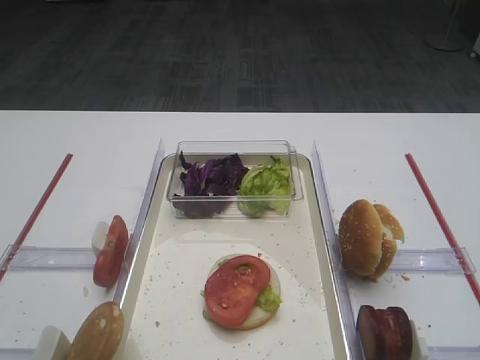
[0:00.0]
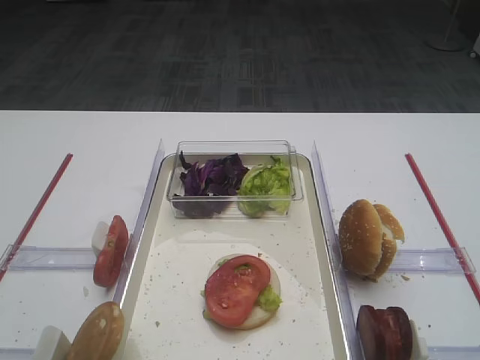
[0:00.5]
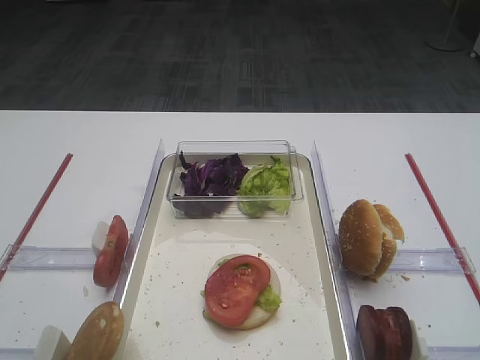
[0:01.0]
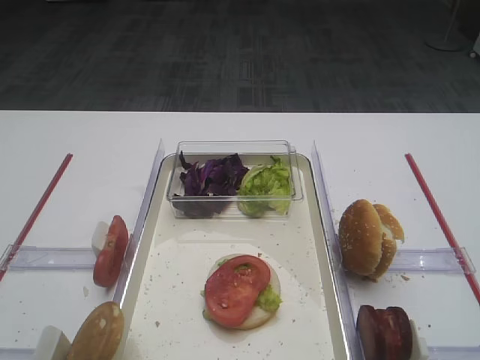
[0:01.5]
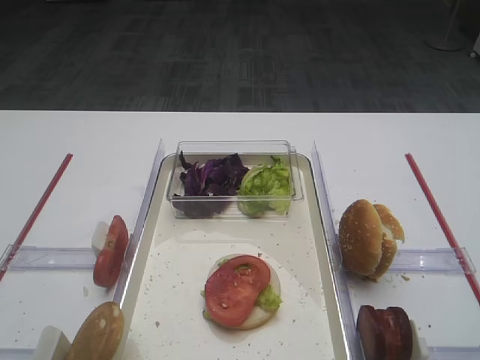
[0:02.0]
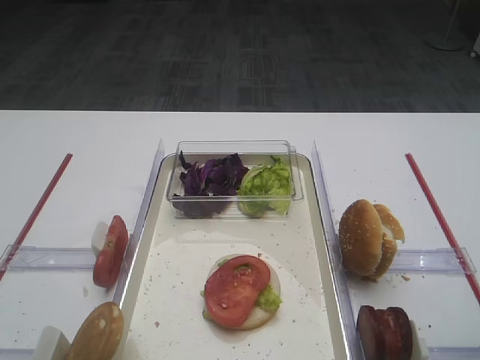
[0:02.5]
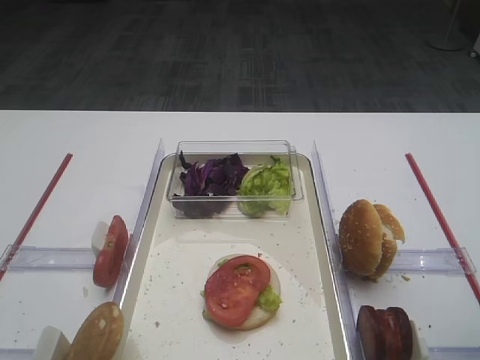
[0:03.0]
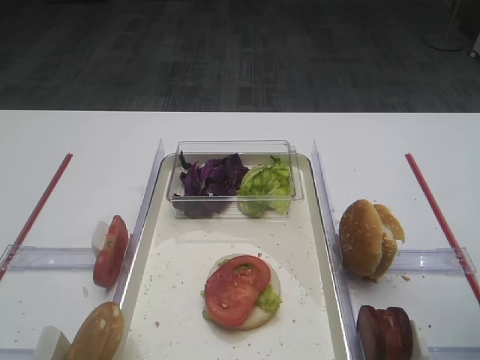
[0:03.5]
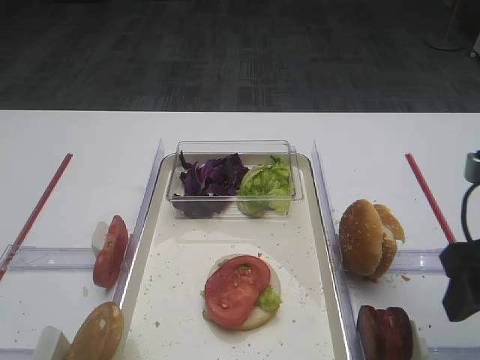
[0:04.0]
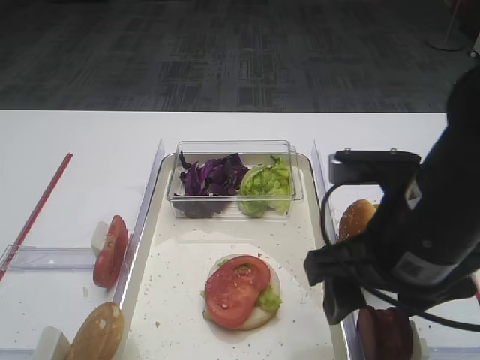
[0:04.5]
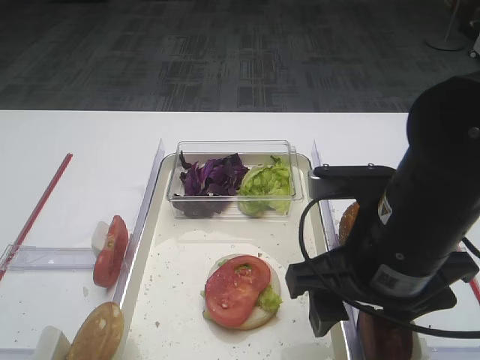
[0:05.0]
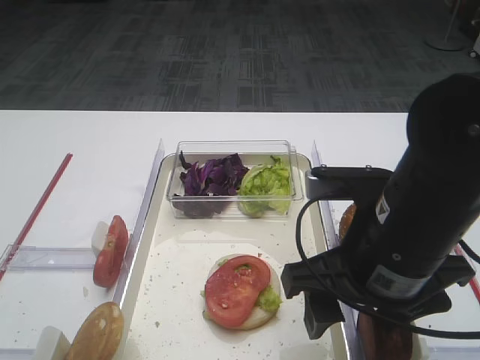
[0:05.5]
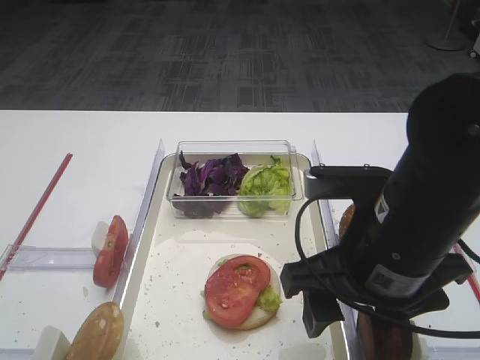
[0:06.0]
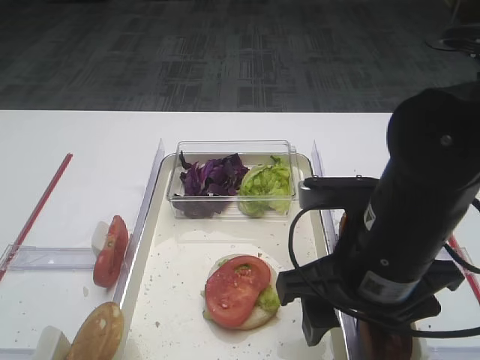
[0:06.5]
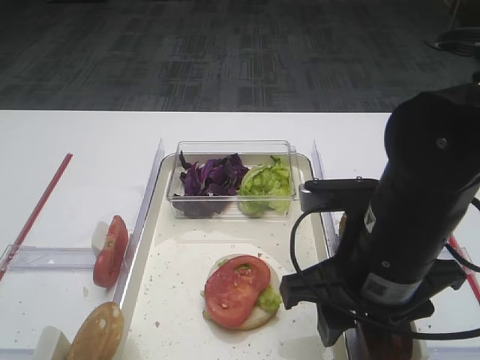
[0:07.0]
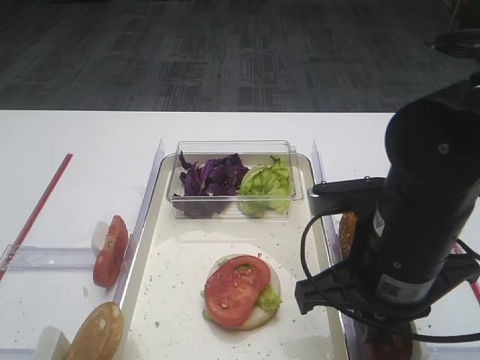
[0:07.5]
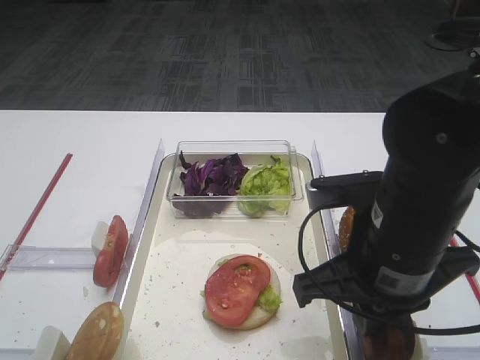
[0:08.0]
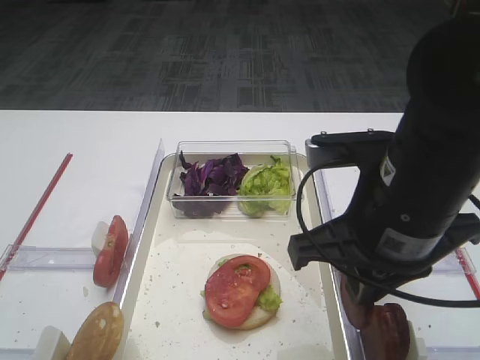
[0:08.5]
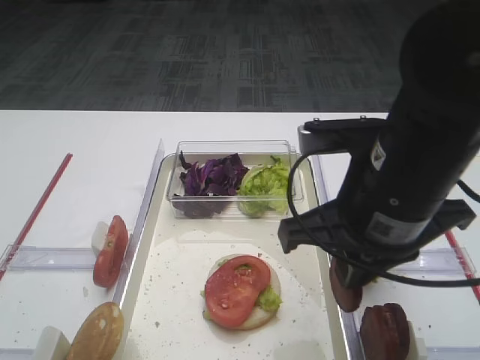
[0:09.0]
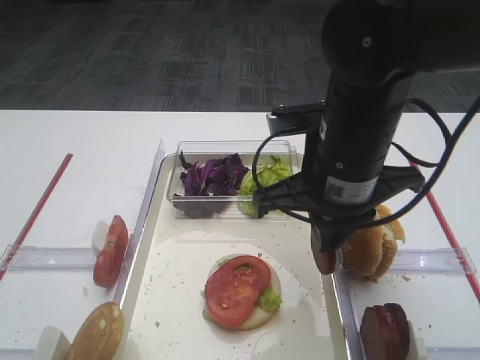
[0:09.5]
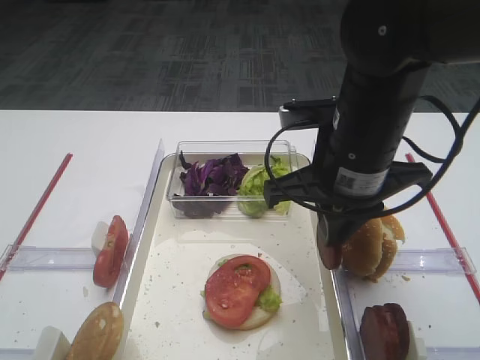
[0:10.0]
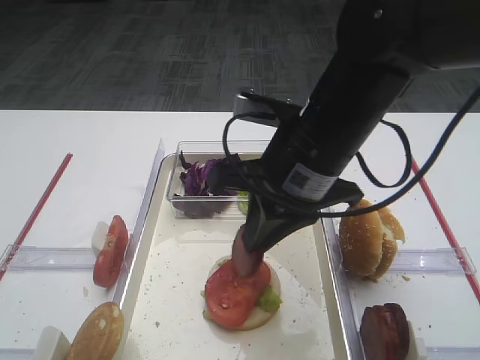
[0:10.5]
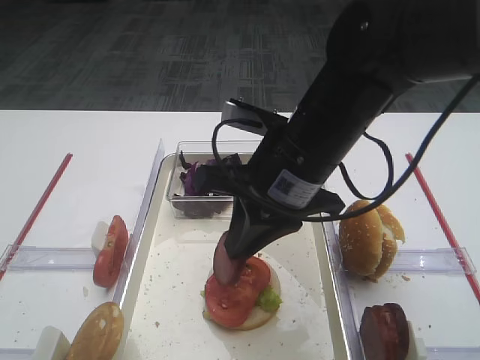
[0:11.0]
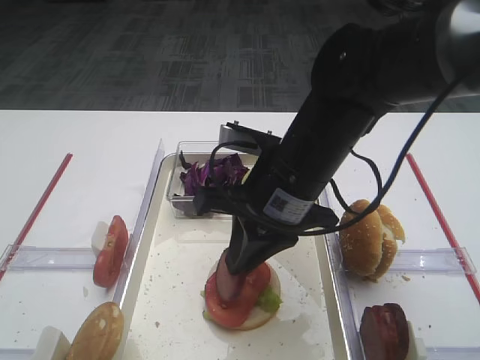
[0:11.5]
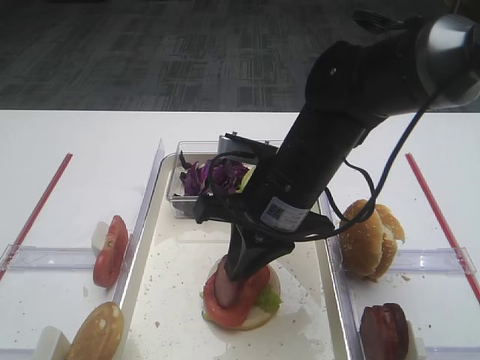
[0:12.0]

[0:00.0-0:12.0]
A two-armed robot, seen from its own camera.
Step, 0.0 to 8.5 s: Pick up the cutlet with the right gripper.
2.0 to 4.0 s: The right gripper travels forward by about 10 cm.
4.0 to 6.0 s: The right gripper goes some 10 cm to the left.
6.0 to 8.0 s: The right gripper closes its fingers.
8.0 to 10.0 s: The right gripper shifts about 5 cm forward.
10.0 to 12.0 s: The right gripper is displaced to the left by roughly 5 cm.

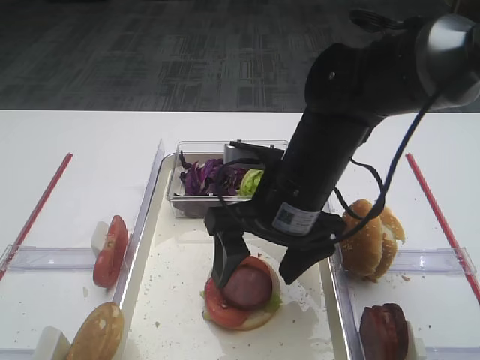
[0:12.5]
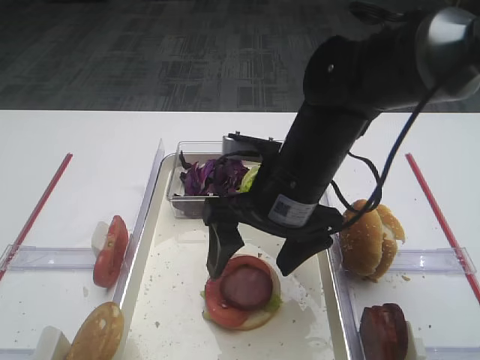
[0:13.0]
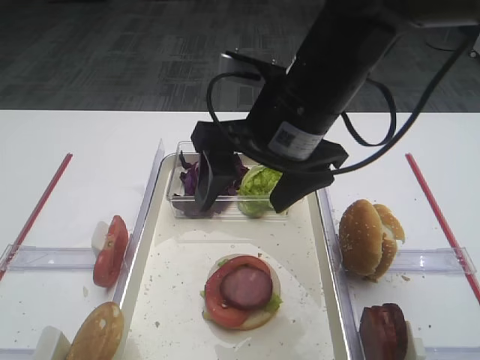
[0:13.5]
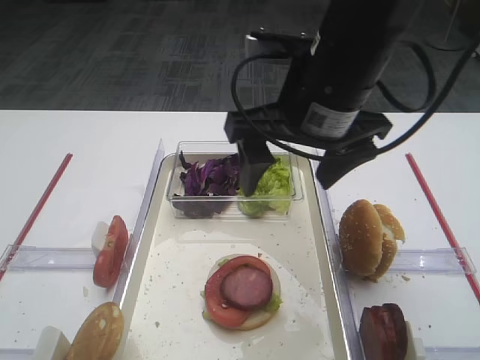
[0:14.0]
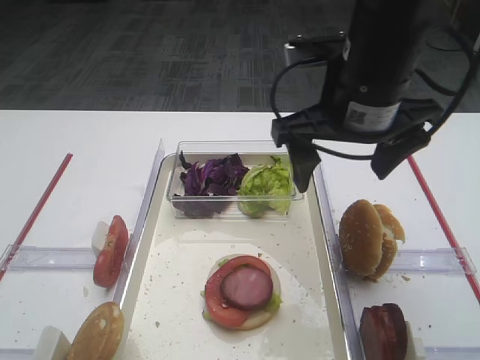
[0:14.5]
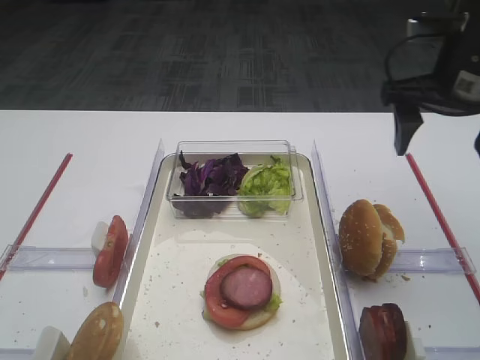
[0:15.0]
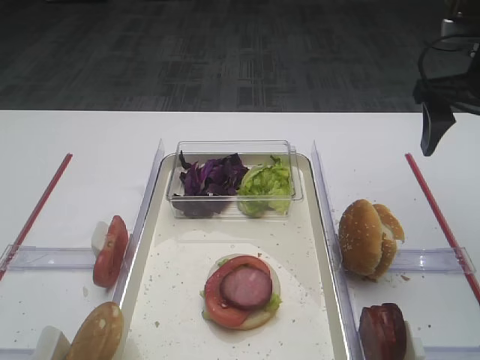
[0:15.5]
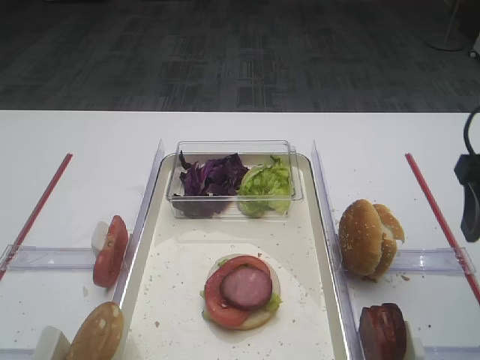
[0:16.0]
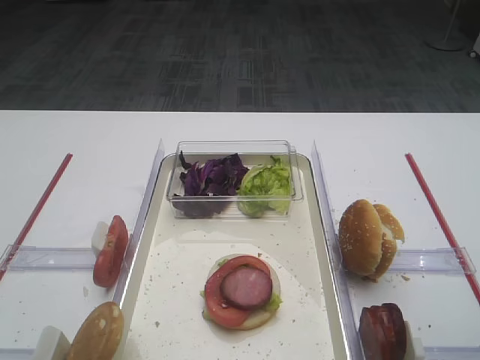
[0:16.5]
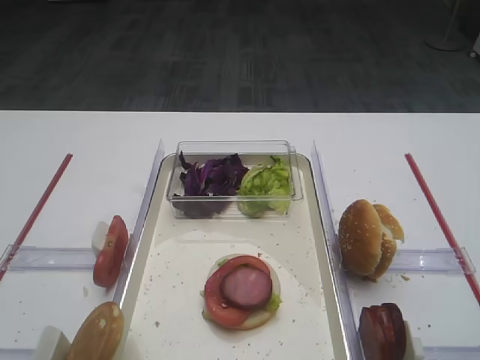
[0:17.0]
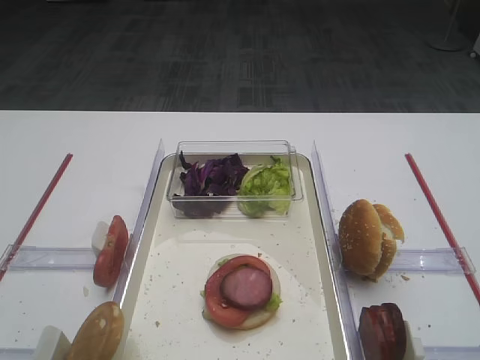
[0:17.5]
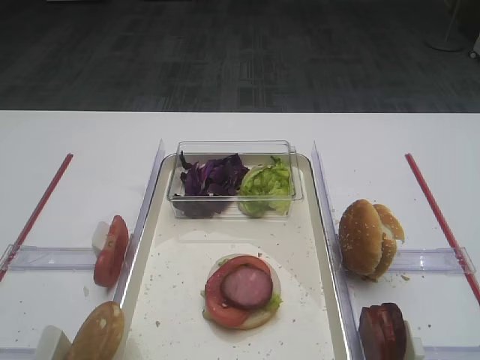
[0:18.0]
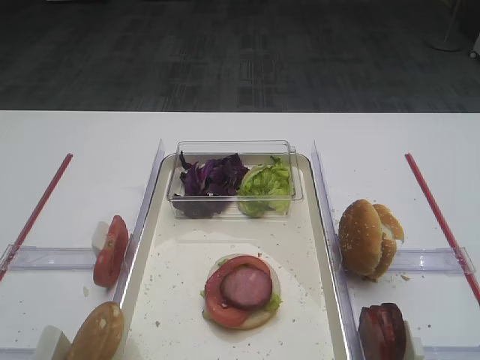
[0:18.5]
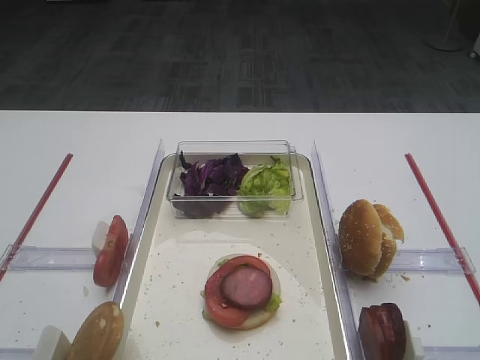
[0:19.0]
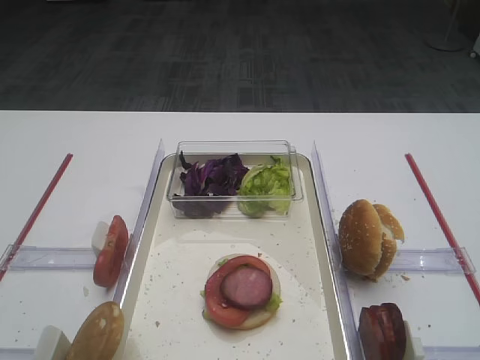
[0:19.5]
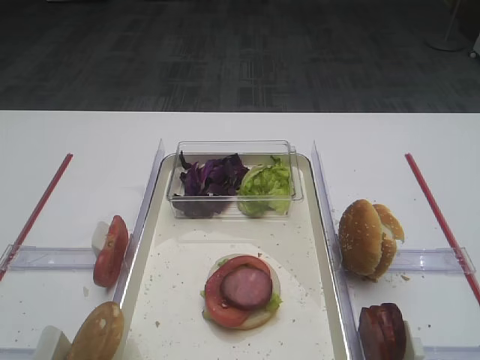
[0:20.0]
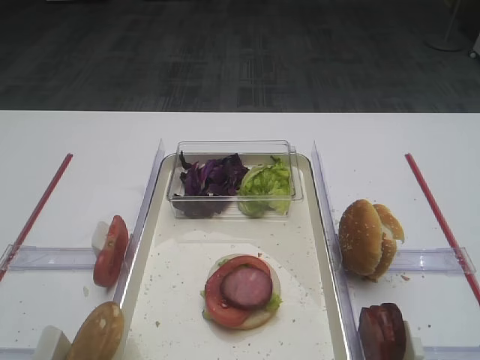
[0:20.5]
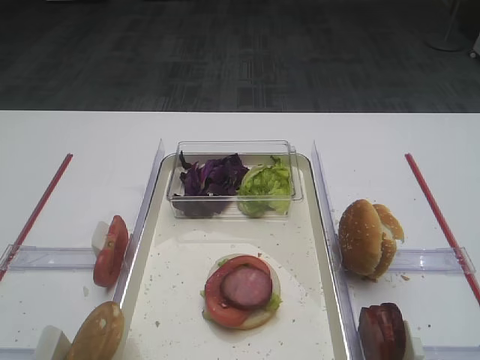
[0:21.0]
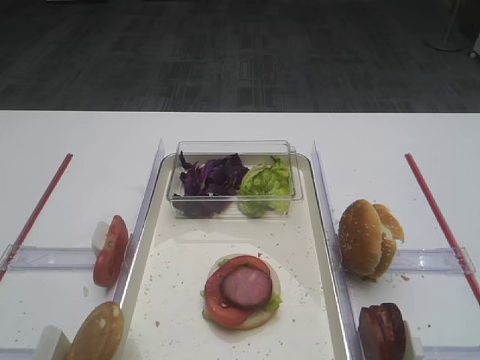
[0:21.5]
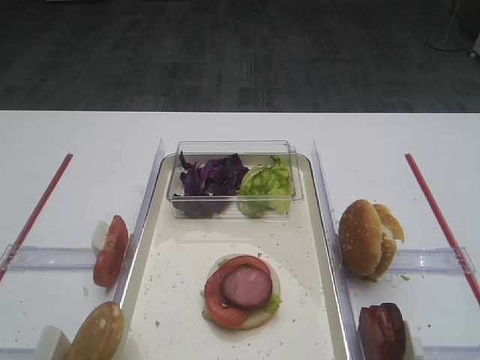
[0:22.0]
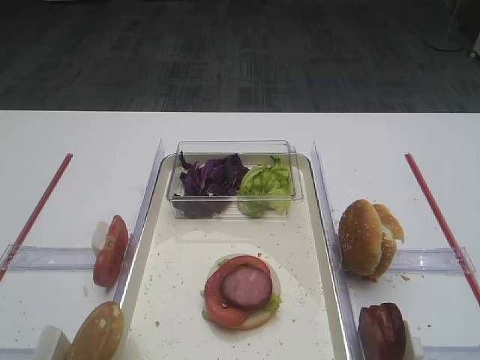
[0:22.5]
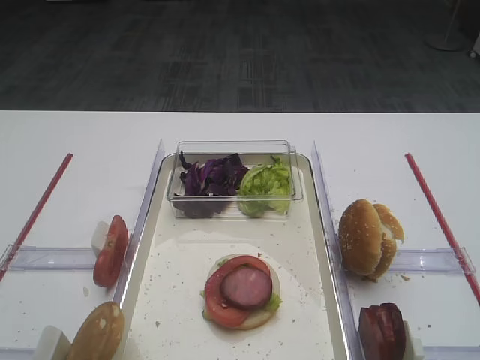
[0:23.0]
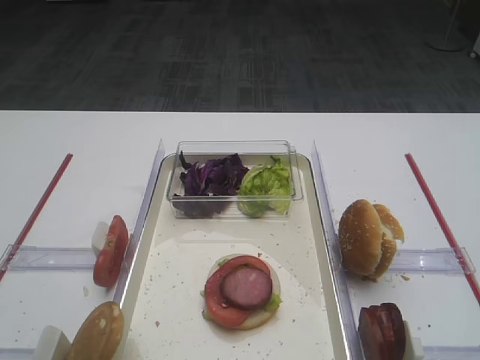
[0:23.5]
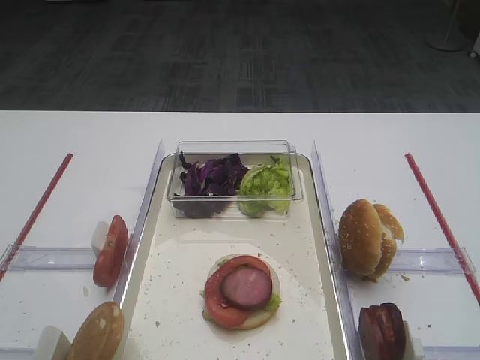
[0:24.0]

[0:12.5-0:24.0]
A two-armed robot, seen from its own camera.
12.5 to 14.5 s: The right gripper shifts roughly 10 cm upward and to the right.
14.5 to 16.5 s: The right gripper goes roughly 25 cm backward and to the right.
18.5 to 24.0 s: Both grippers stay about where they are.

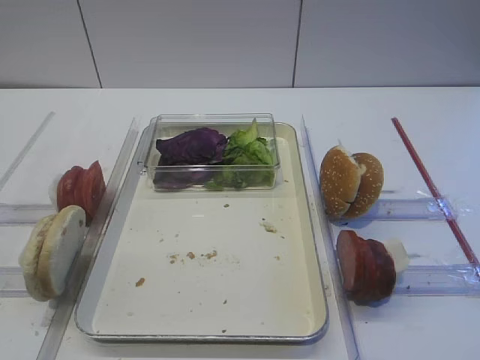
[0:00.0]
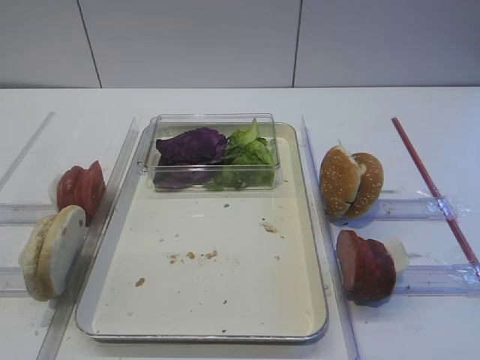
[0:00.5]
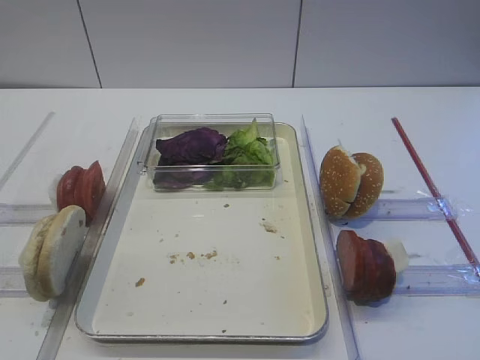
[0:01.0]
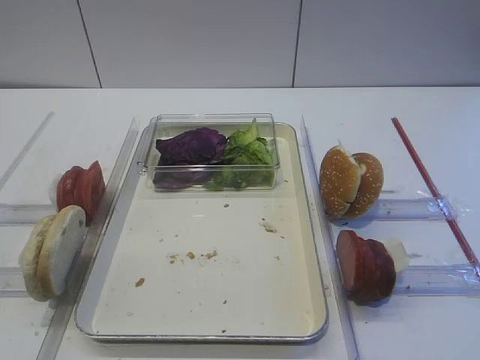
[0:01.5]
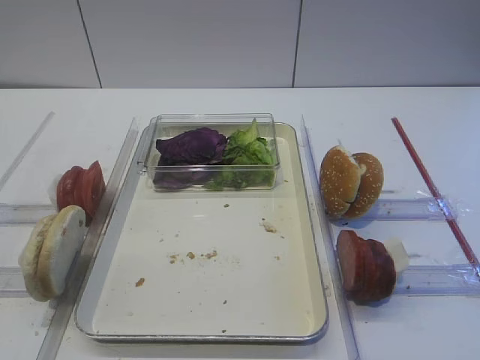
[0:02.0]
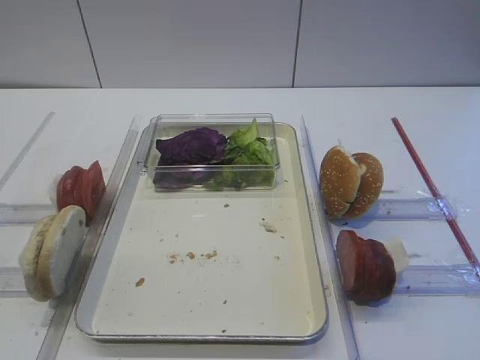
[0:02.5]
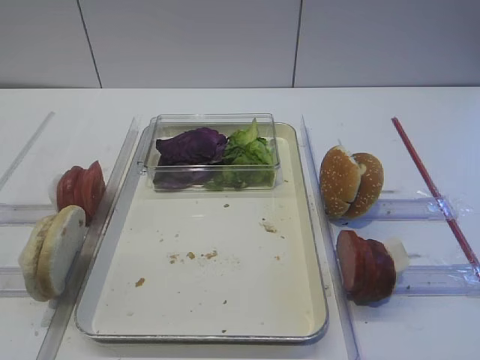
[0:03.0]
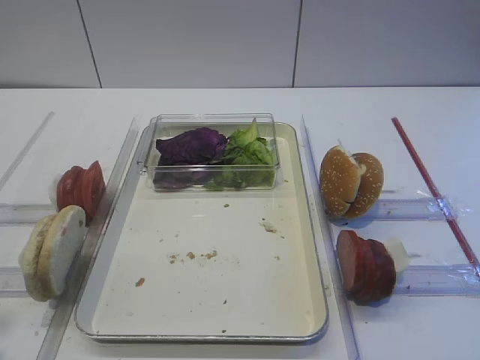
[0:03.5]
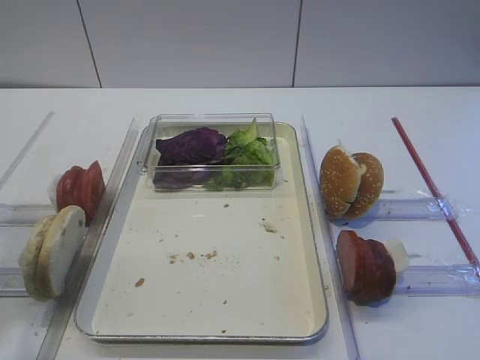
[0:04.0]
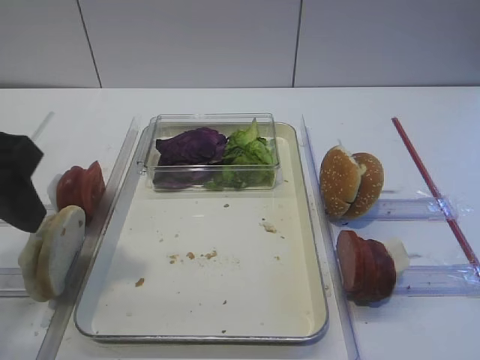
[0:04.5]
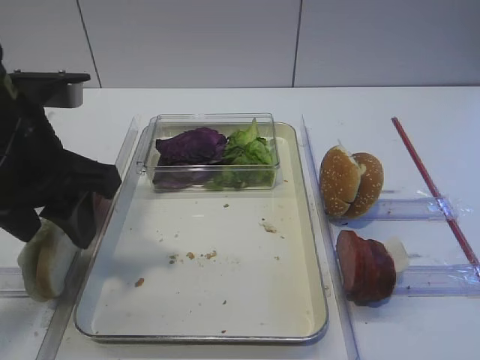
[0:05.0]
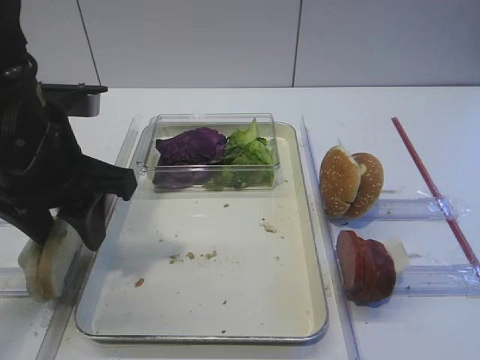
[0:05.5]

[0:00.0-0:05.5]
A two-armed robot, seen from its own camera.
3.5 to 5.5 s: The left gripper goes some 25 cm forward and to the right.
